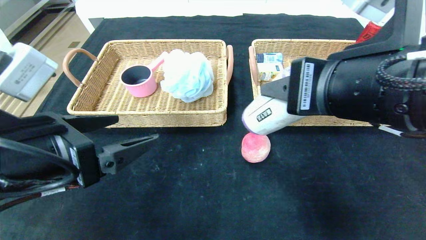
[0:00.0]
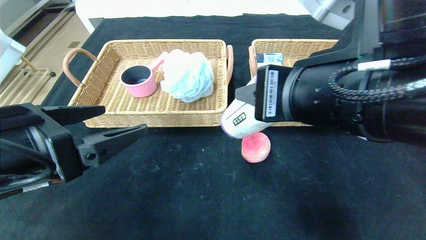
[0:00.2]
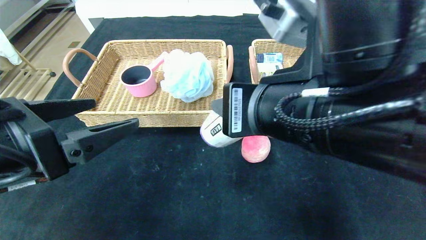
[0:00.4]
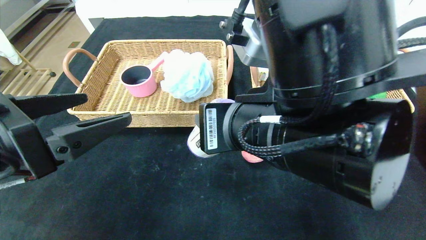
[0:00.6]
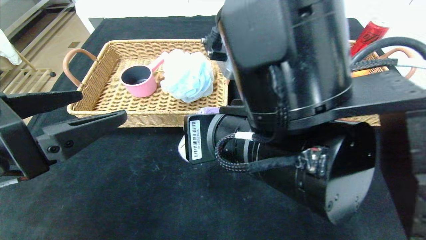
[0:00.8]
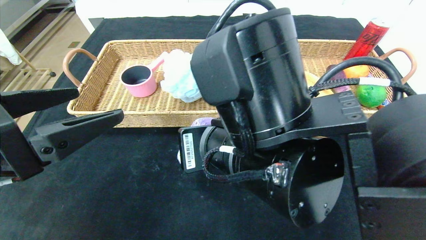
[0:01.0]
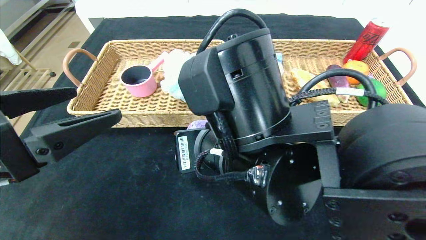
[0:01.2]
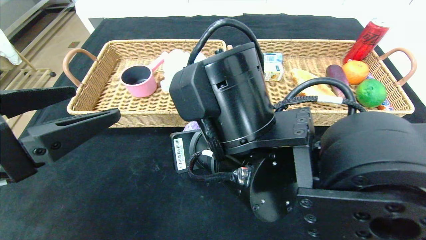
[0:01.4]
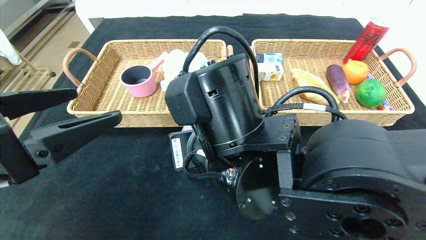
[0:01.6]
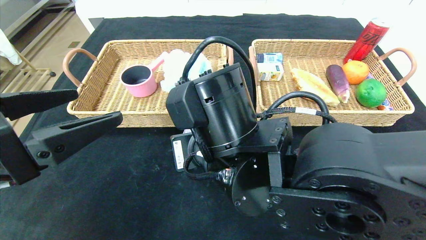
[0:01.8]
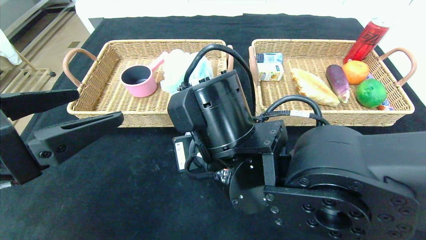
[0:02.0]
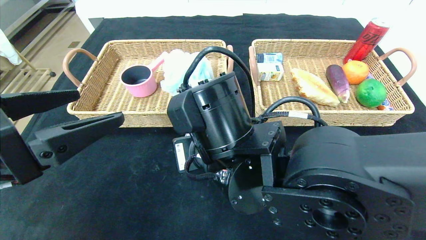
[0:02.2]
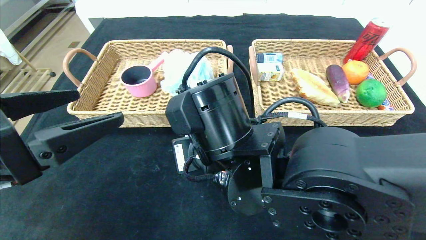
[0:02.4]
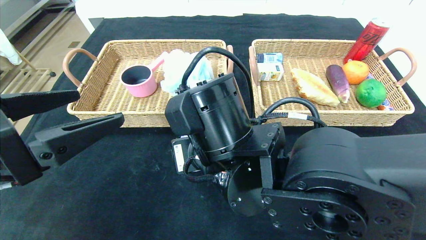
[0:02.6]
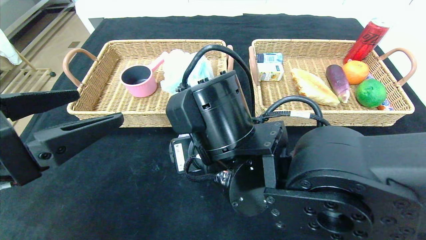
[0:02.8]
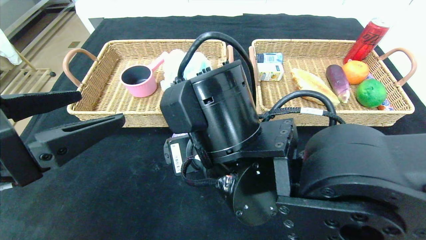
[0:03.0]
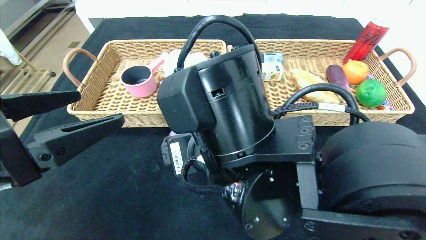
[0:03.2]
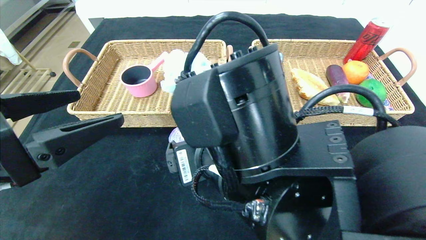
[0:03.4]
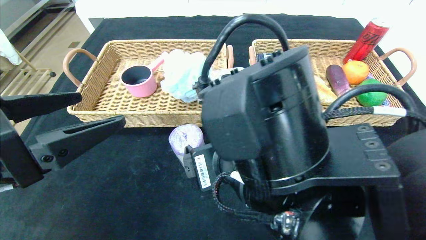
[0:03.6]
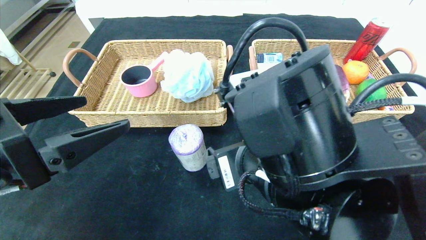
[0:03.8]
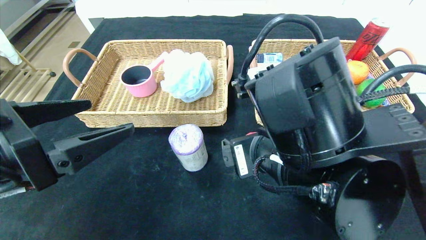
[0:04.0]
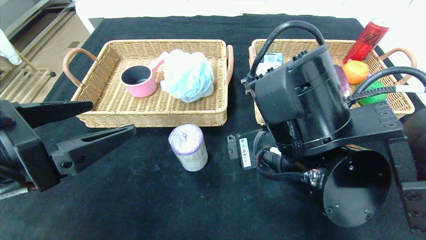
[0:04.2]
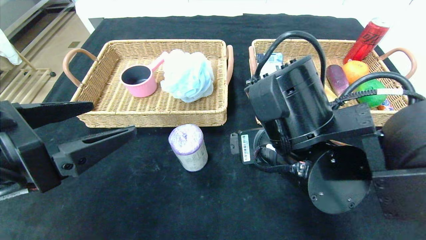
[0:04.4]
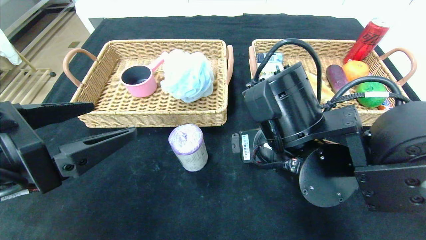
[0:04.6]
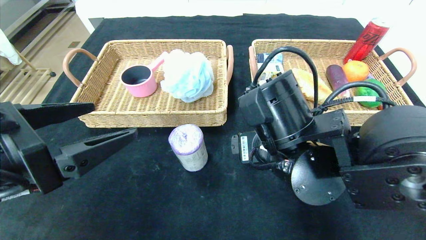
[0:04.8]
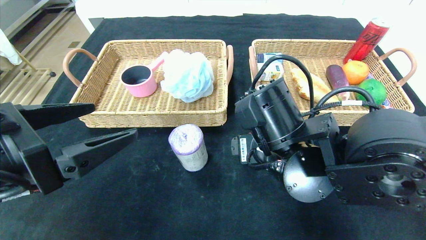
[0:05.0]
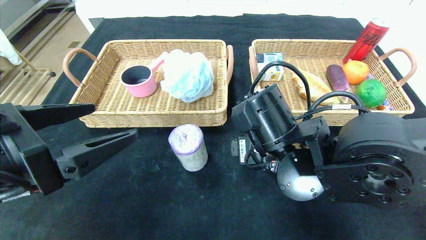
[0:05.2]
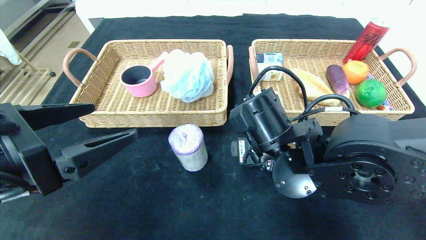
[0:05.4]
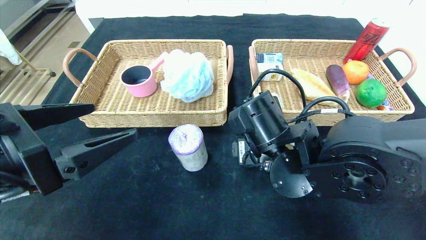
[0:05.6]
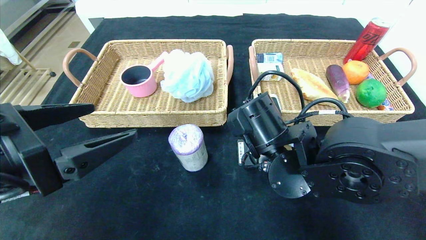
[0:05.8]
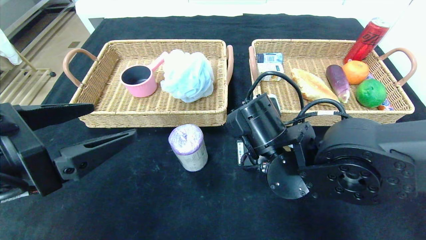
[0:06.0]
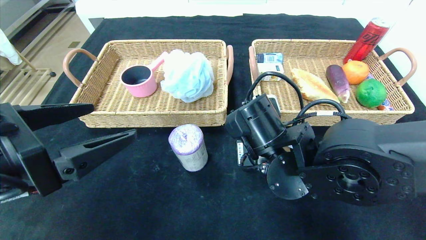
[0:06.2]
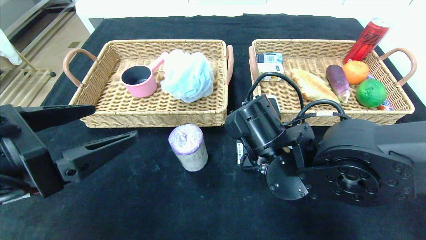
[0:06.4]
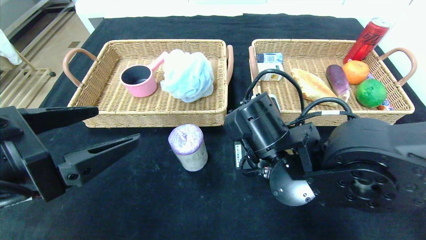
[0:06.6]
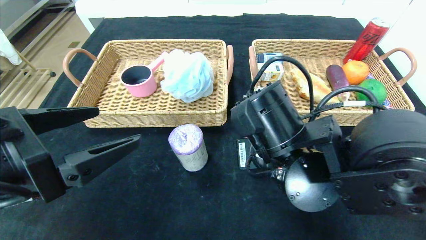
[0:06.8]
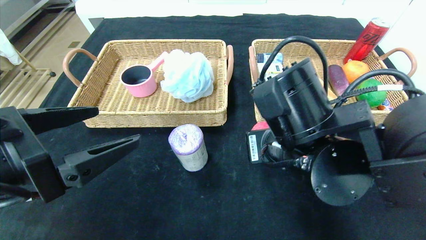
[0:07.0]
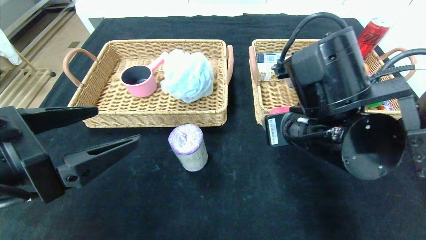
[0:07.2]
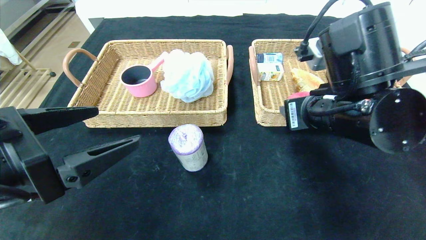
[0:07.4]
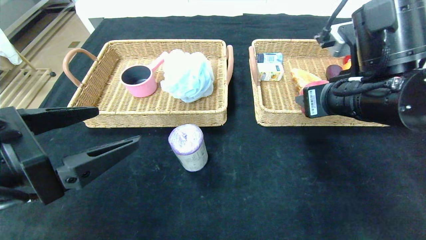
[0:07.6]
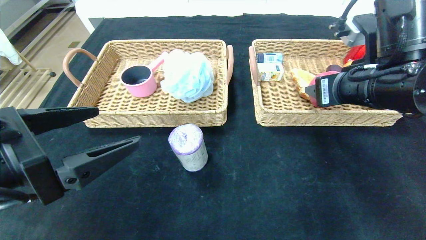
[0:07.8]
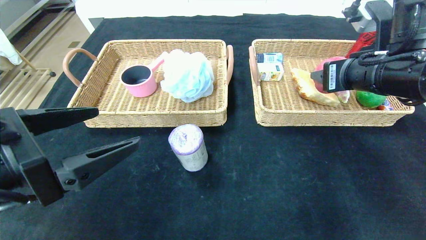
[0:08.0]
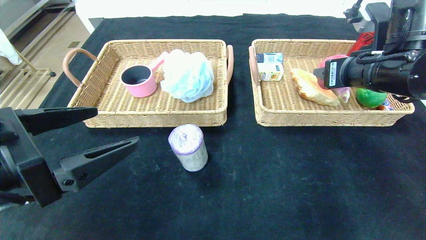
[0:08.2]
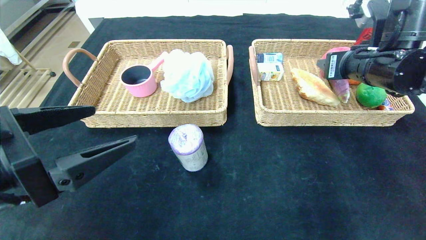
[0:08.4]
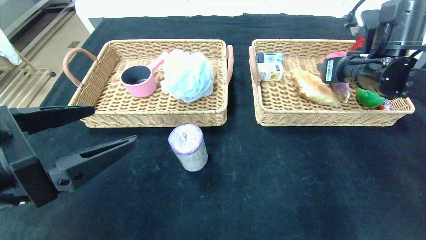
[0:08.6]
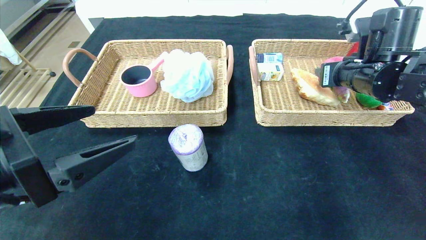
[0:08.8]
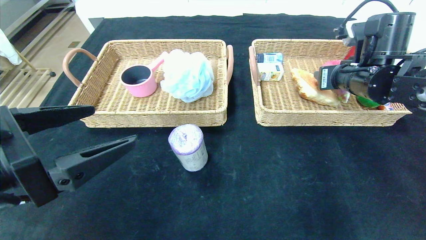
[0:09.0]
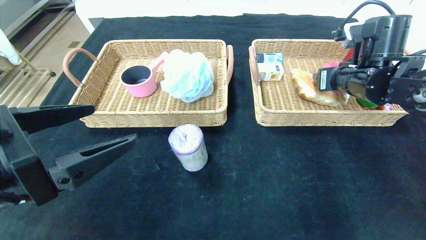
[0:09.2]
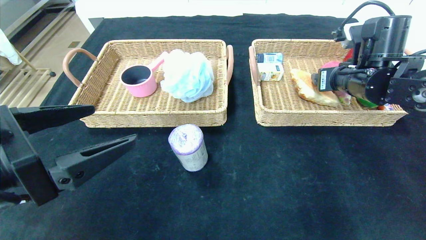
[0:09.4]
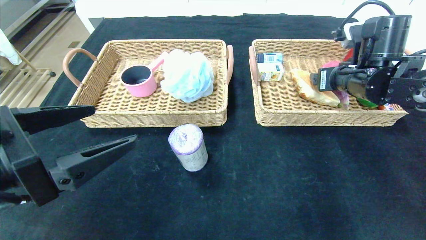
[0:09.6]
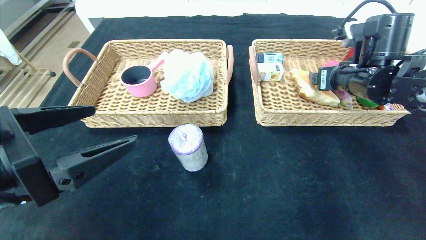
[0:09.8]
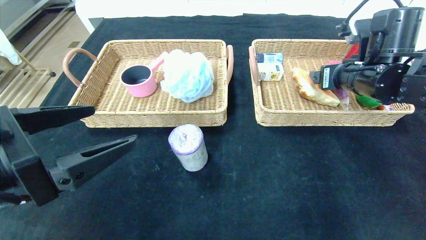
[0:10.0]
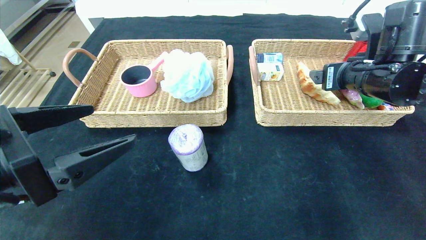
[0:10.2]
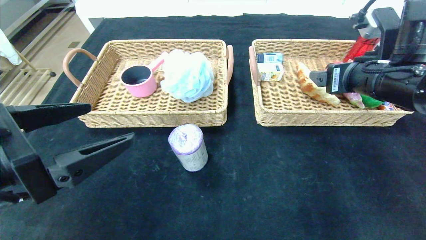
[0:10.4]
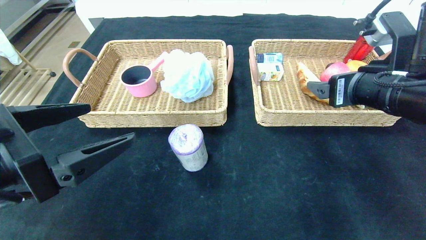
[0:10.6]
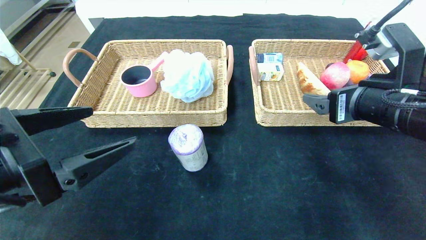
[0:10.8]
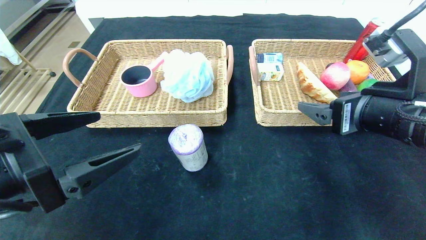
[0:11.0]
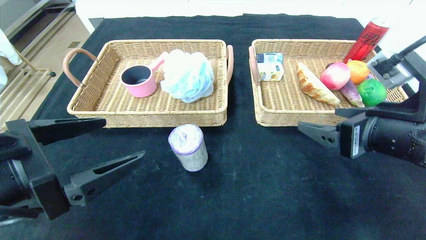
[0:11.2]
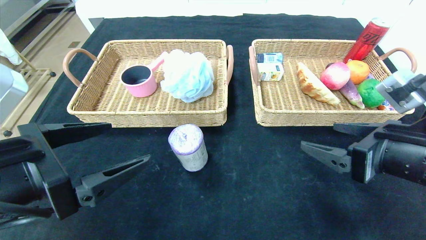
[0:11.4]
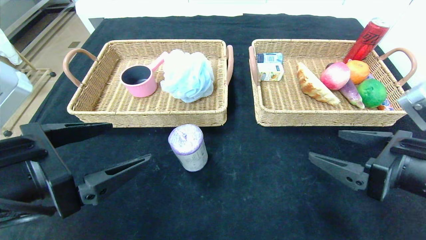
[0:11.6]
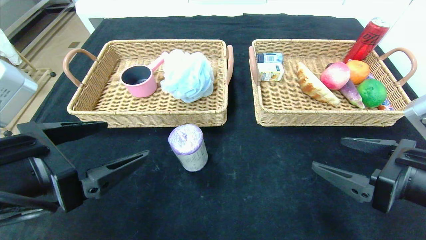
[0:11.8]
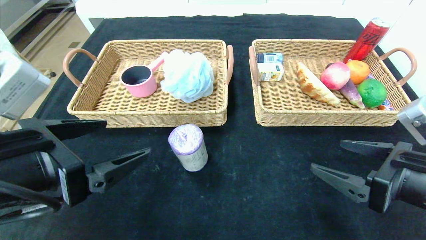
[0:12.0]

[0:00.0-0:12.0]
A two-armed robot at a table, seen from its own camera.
Step, 0:00.0 to 0:04.0: Place the purple garbage bag in the center of the table.
Step, 0:04.2 to 0:11.6: Pick up the peach and put it in the right basket.
0:00.0 to 0:01.6: The right gripper heads to the left and downward, covering roughly 15 cm.
0:01.6 to 0:03.0: The right gripper opens.
0:03.0 to 0:04.4: The right gripper is displaced to the right by about 10 cm.
0:04.4 to 0:06.0: The right gripper moves about 5 cm, and closes.
0:06.0 to 0:07.6: The right gripper shifts about 15 cm to the right and upward.
0:07.6 to 0:09.0: The right gripper shifts about 15 cm forward and to the right.
0:09.0 to 0:10.4: The right gripper travels backward by about 10 cm, and opens up.
0:10.4 to 0:12.0: The right gripper shifts roughly 15 cm backward and downward.

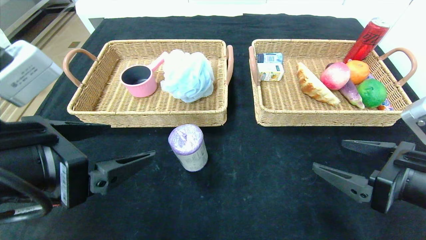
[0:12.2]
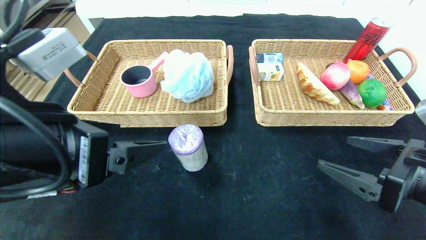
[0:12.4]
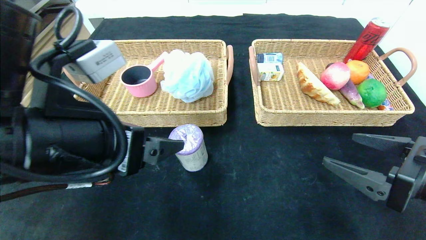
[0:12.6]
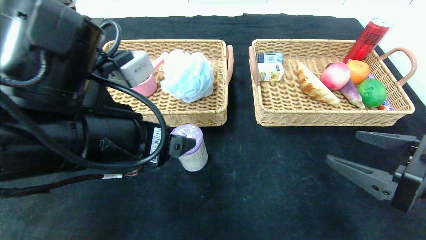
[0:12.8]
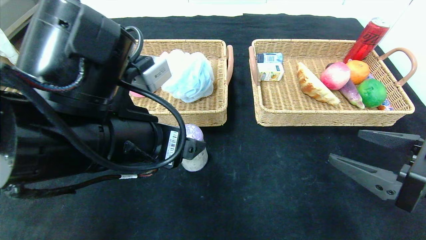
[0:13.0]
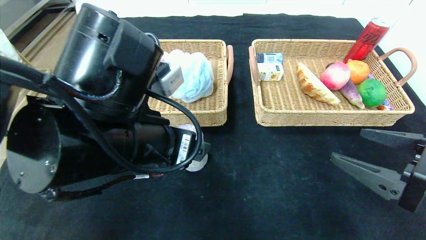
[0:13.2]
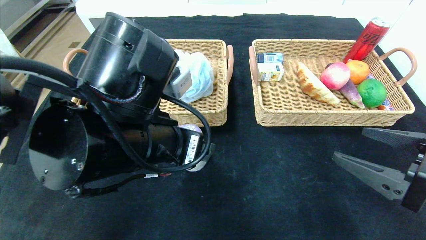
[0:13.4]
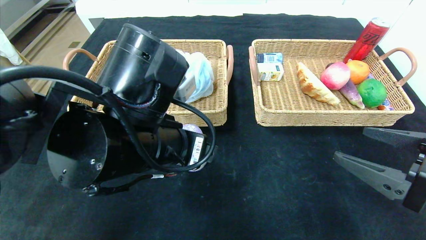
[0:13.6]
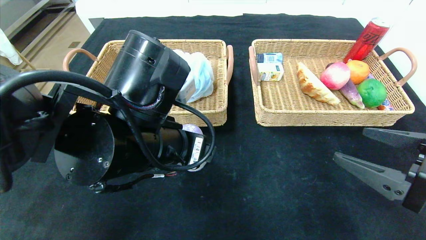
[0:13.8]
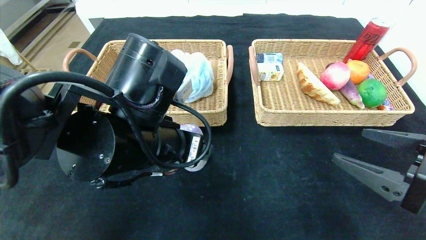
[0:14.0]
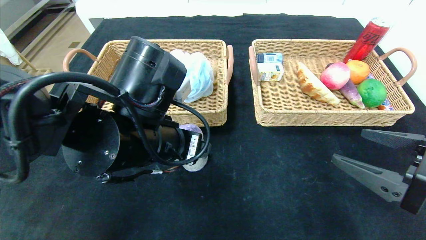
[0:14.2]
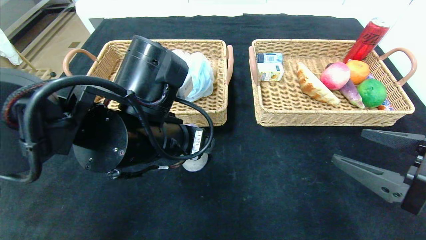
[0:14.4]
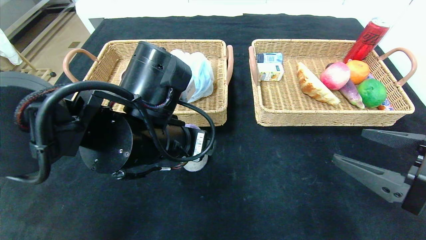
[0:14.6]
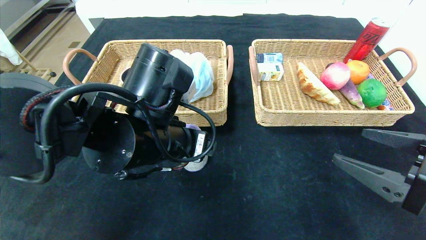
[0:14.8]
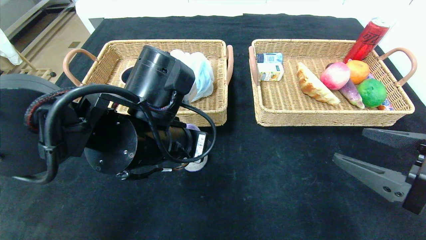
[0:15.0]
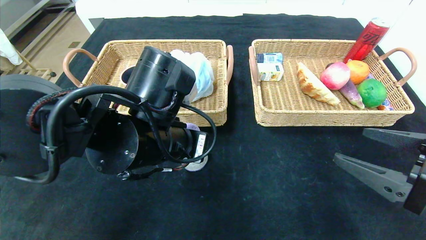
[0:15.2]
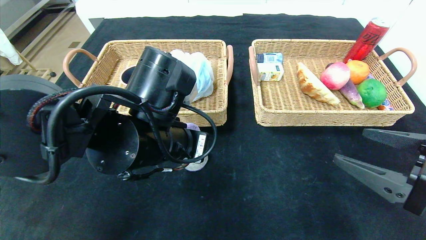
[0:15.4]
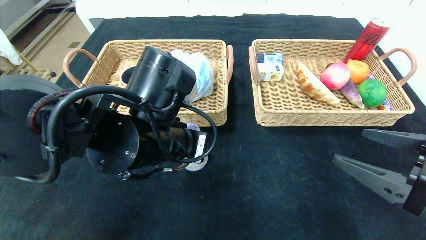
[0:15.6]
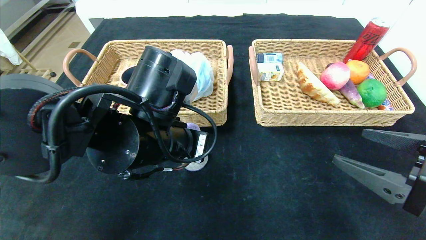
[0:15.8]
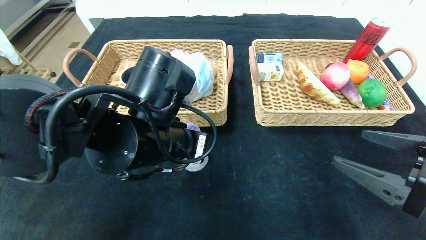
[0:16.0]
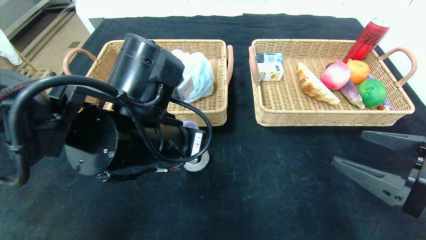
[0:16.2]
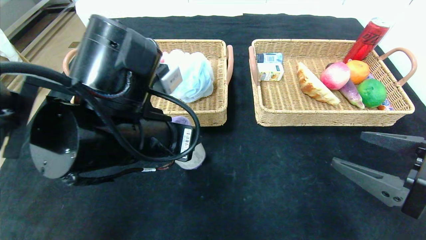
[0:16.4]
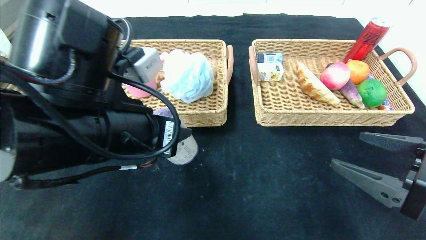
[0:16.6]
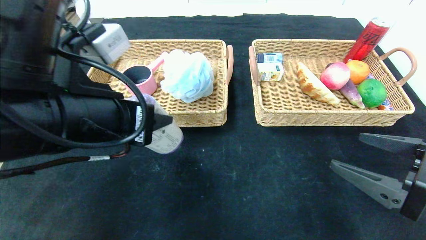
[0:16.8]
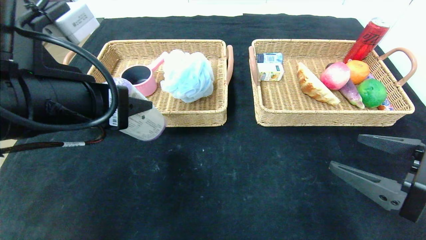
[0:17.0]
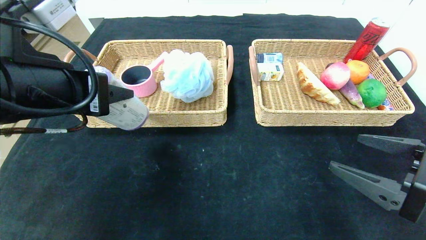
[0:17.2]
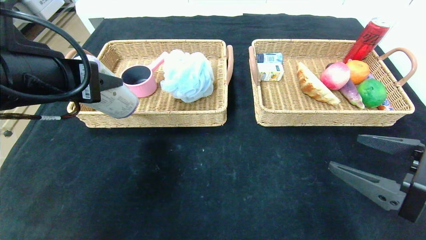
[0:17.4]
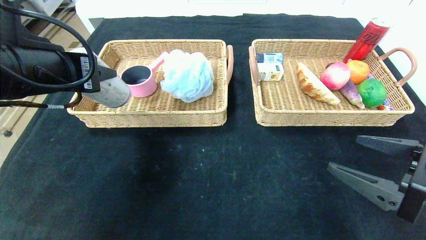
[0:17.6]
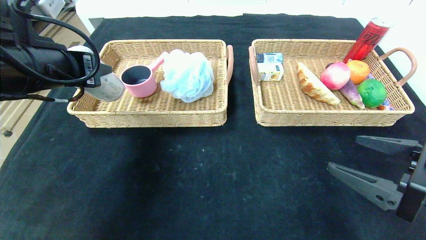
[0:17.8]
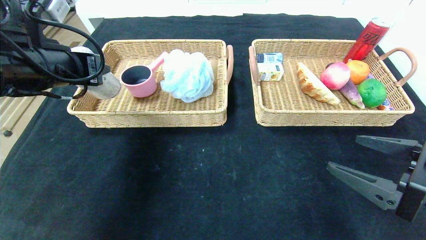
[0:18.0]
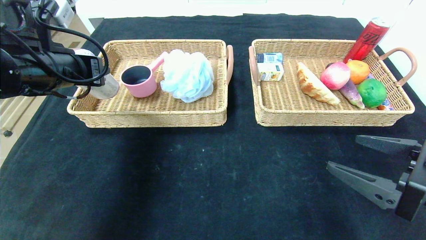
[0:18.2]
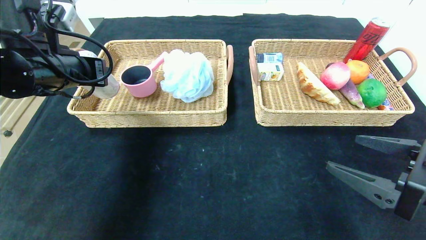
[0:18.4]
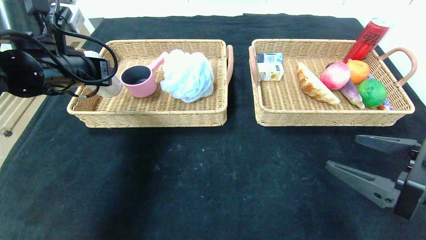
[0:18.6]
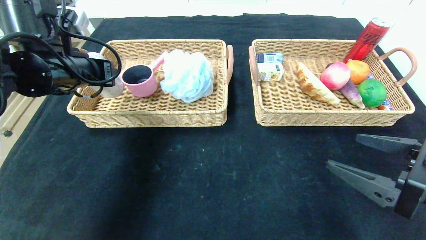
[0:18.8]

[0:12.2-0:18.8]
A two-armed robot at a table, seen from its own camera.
0:12.2 to 0:13.8: The left gripper moves to the right and forward, approximately 15 cm.
0:13.8 to 0:15.4: The left gripper closes its fingers.
0:15.4 to 0:17.2: The left gripper is displaced to the left and upward by some 15 cm.
0:17.2 to 0:18.8: The left gripper shifts approximately 15 cm forward and to the left.
